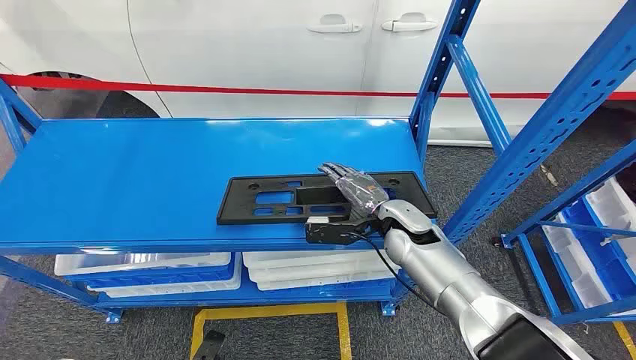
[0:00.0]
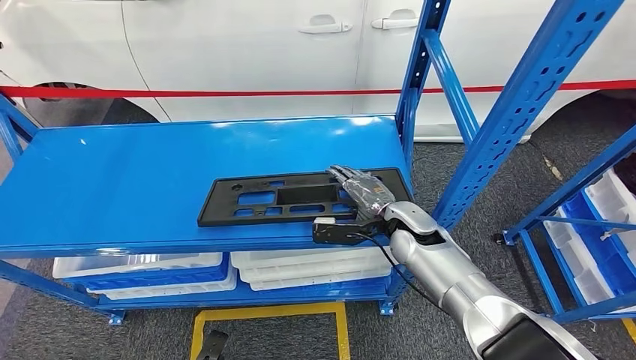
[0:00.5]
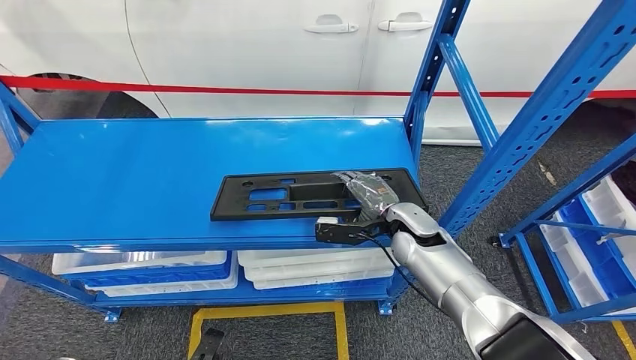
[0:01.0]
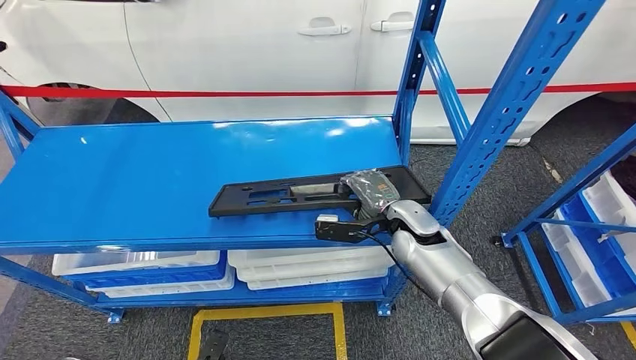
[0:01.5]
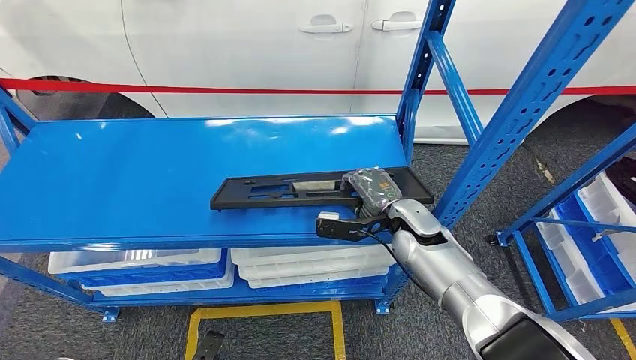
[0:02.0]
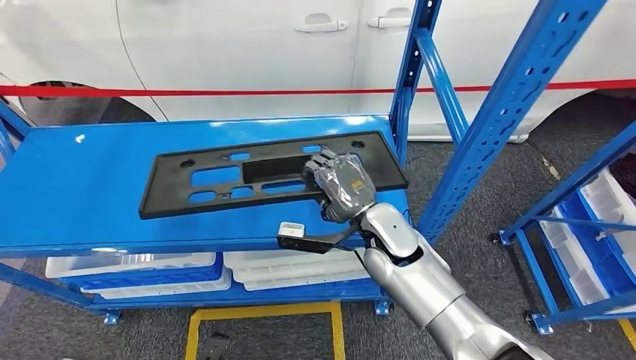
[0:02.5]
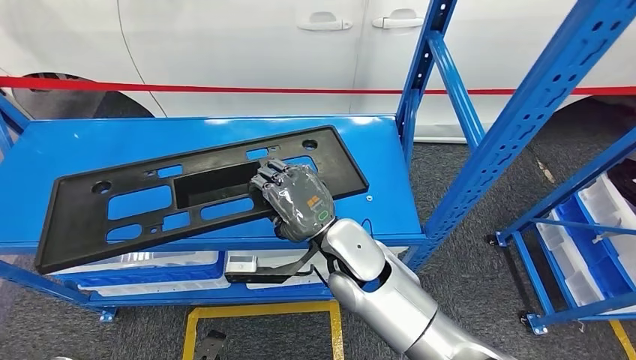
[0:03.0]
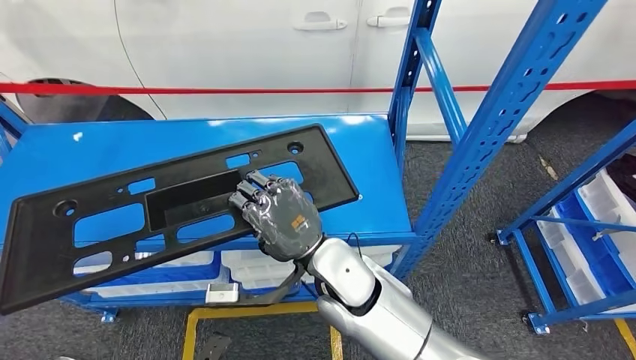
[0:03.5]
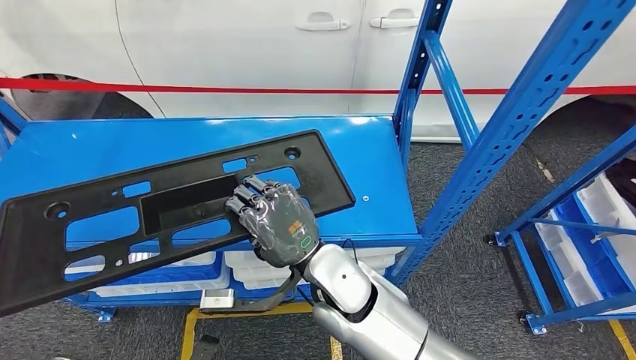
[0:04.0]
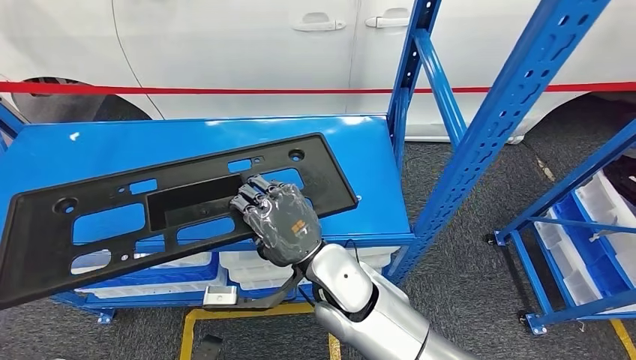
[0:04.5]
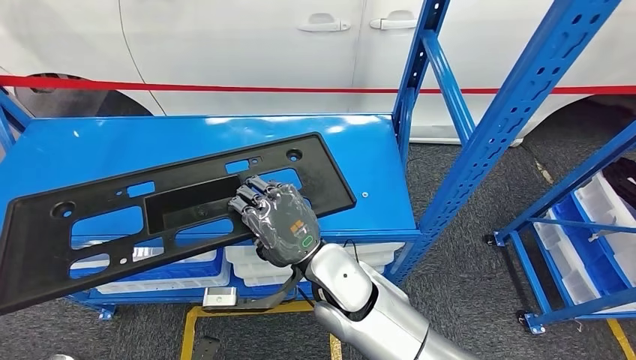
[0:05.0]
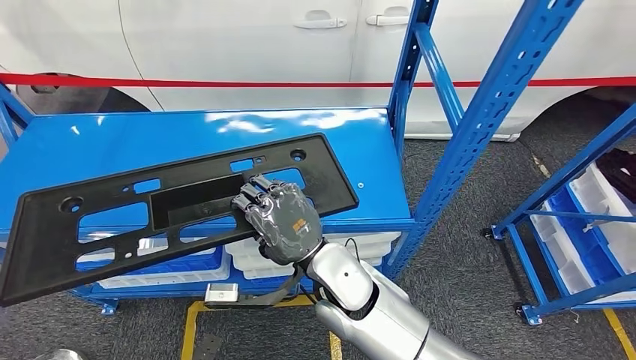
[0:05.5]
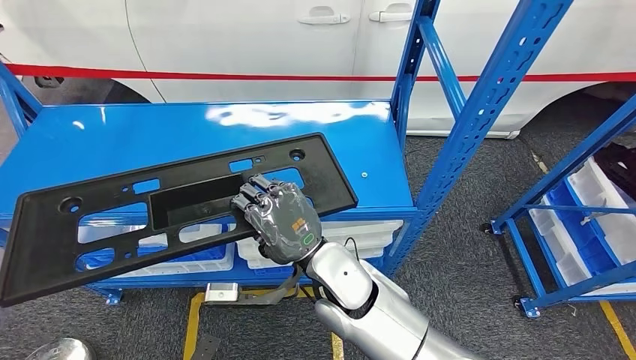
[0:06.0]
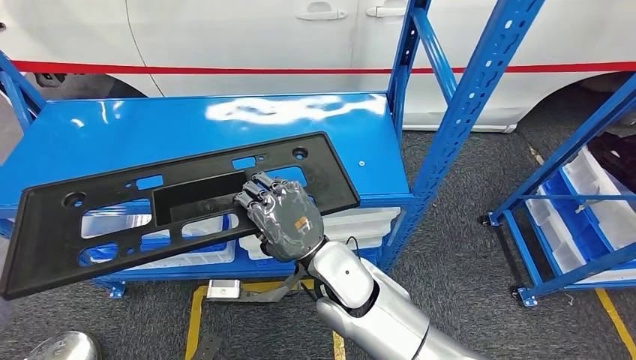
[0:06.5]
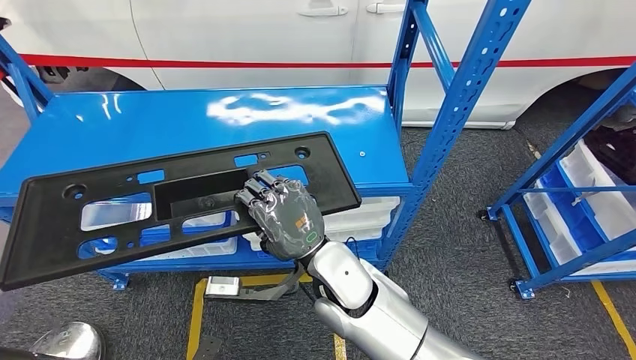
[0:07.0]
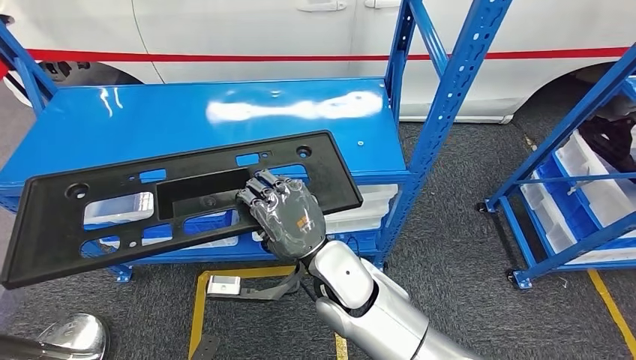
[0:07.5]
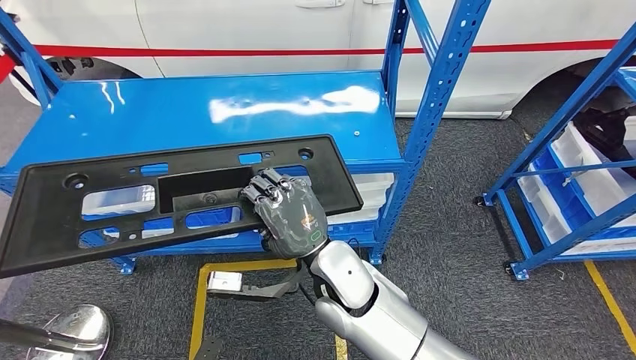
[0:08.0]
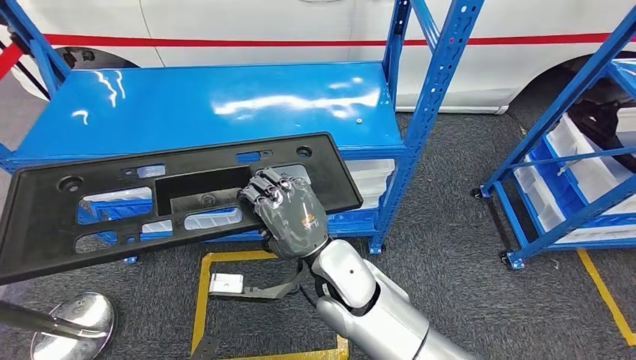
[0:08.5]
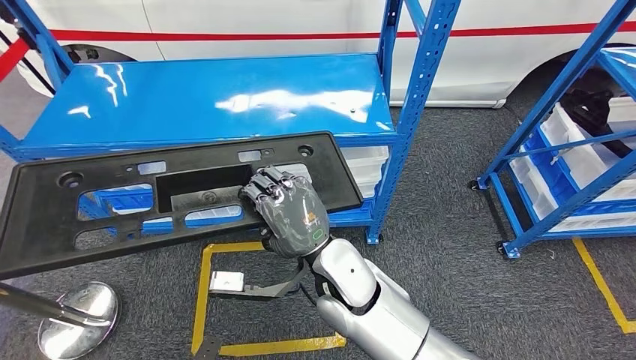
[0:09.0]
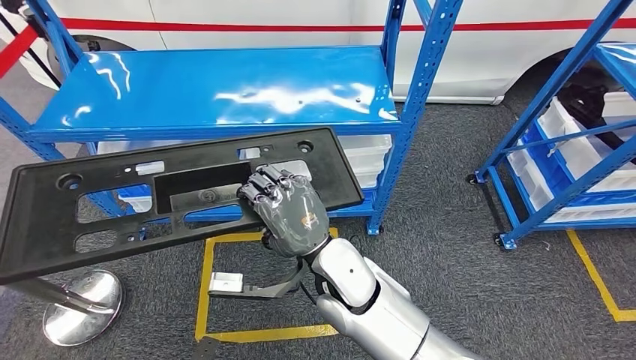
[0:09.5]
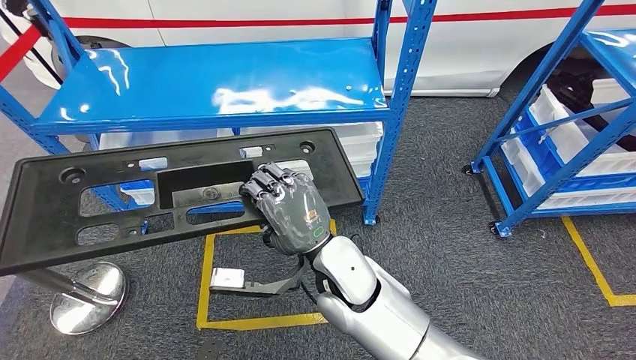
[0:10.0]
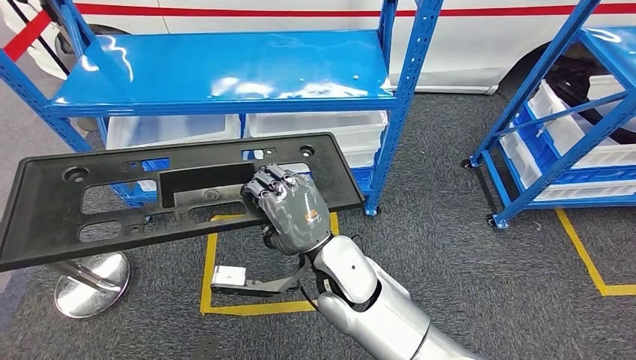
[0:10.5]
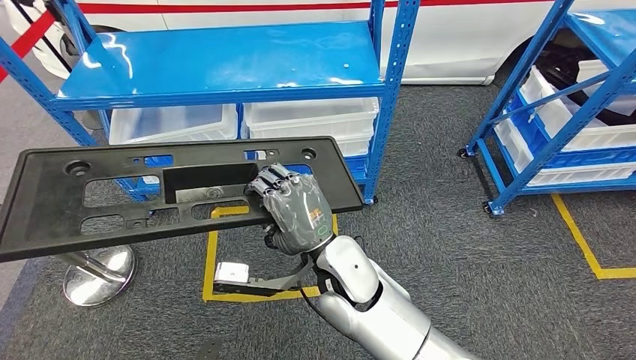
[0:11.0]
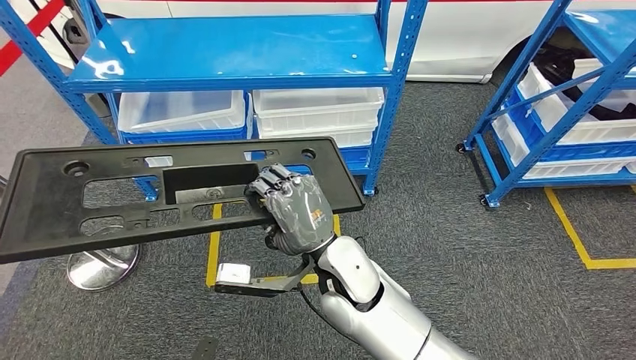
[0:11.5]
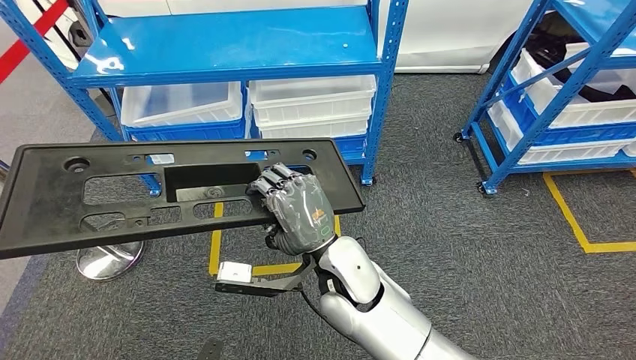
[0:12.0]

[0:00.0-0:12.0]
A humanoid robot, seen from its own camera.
Step, 0:00.0 to 0:04.5: Pick up the large material from the shelf.

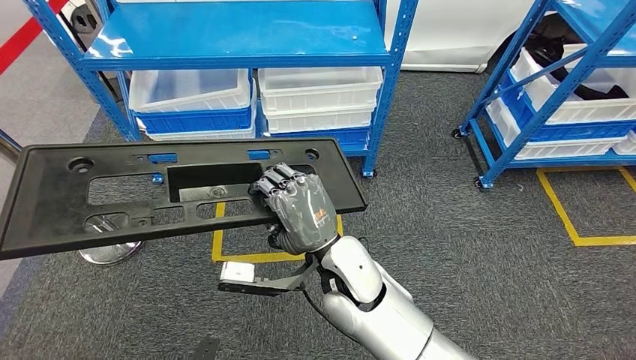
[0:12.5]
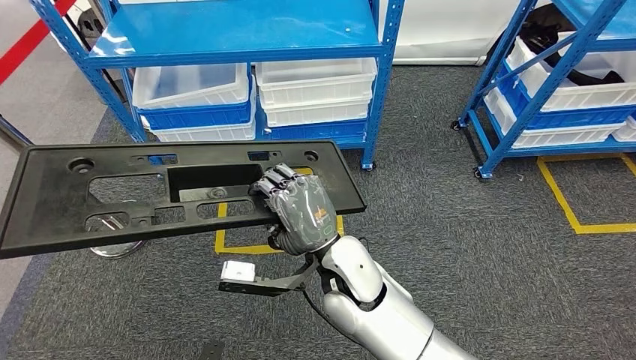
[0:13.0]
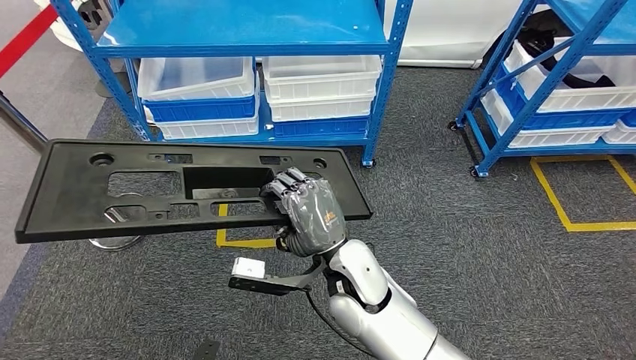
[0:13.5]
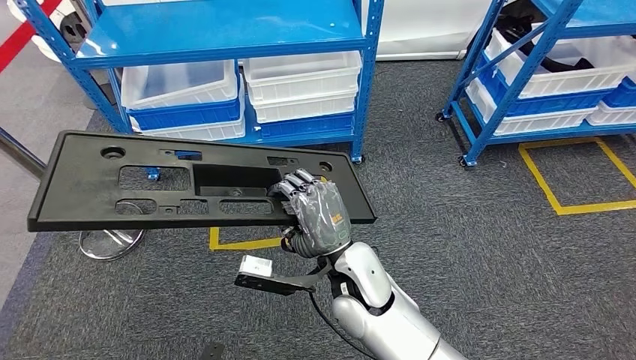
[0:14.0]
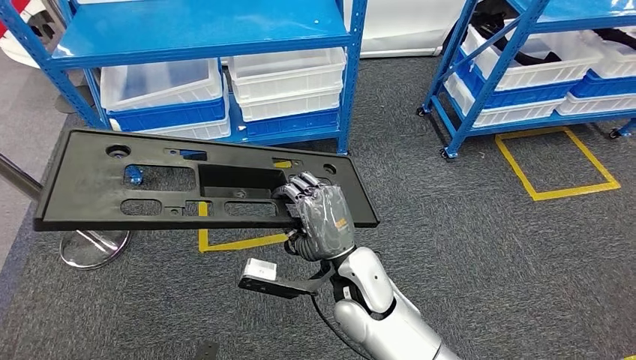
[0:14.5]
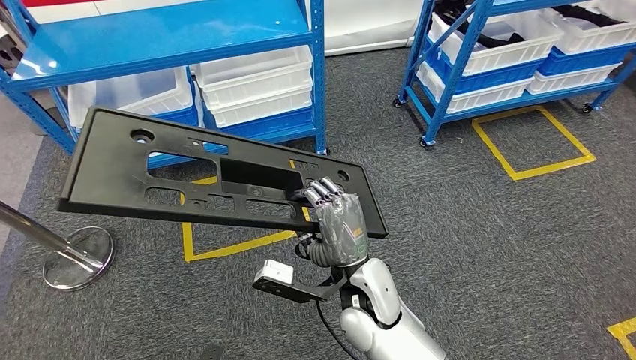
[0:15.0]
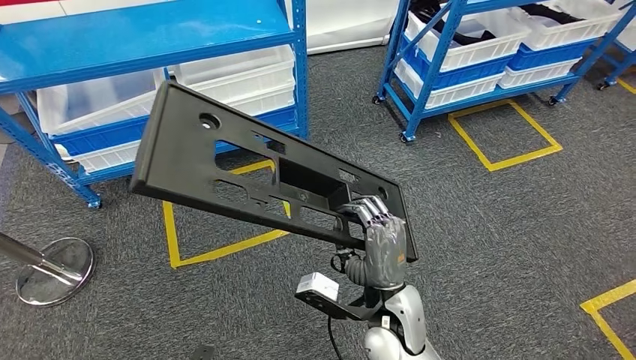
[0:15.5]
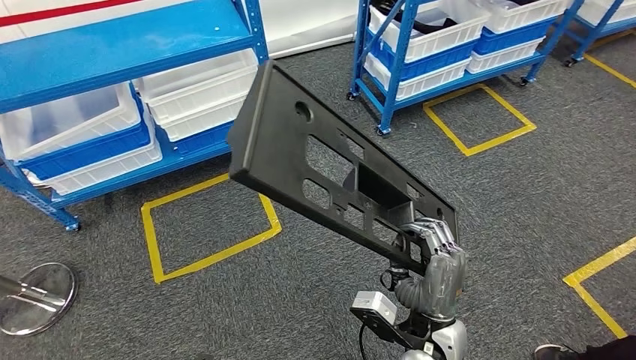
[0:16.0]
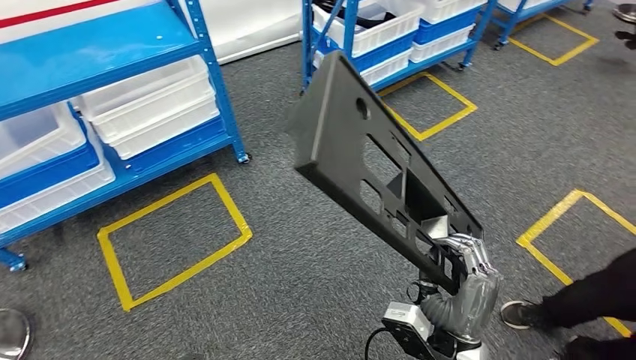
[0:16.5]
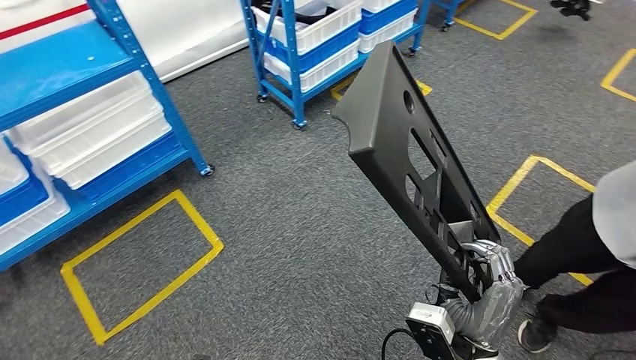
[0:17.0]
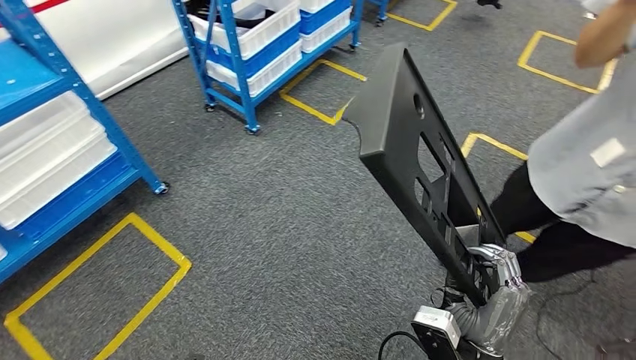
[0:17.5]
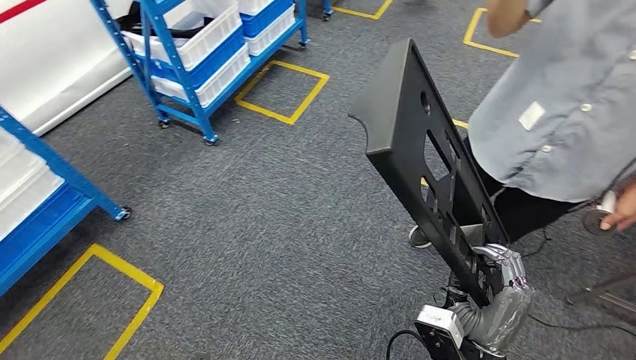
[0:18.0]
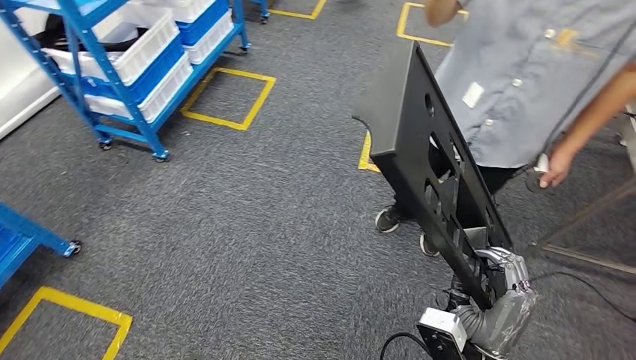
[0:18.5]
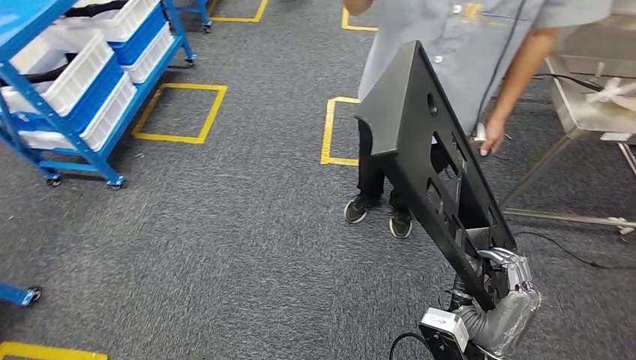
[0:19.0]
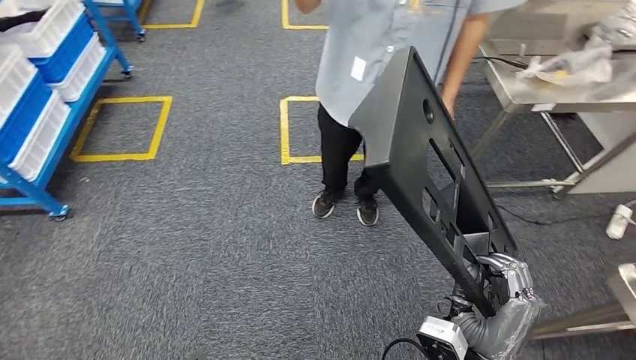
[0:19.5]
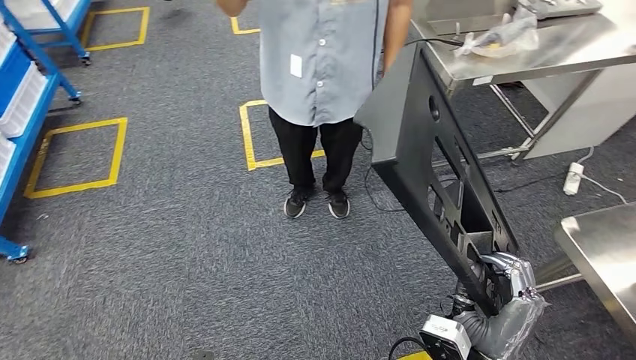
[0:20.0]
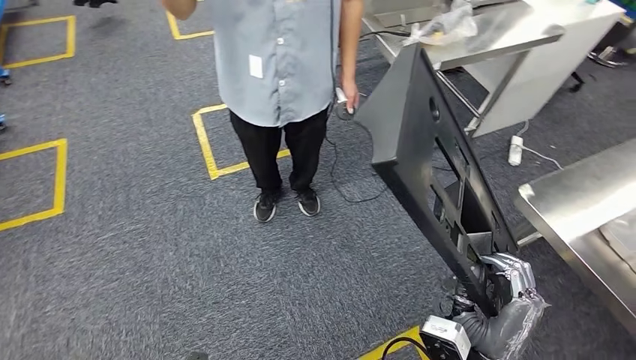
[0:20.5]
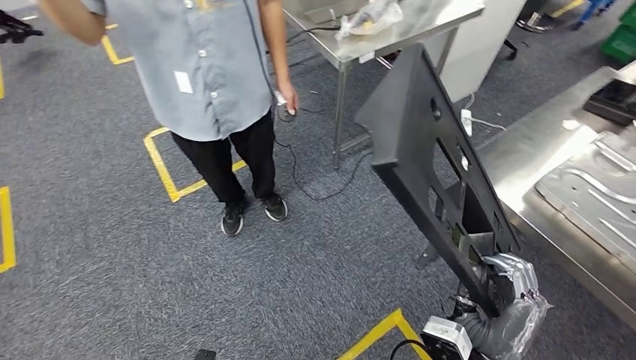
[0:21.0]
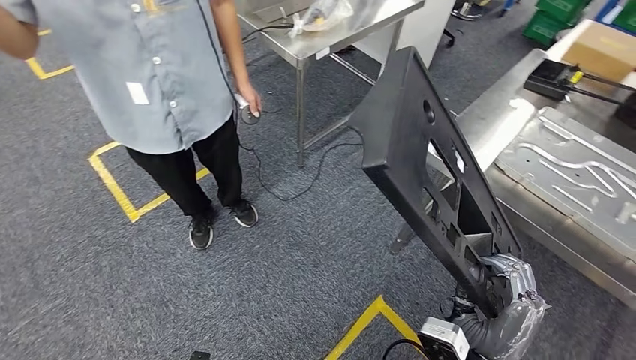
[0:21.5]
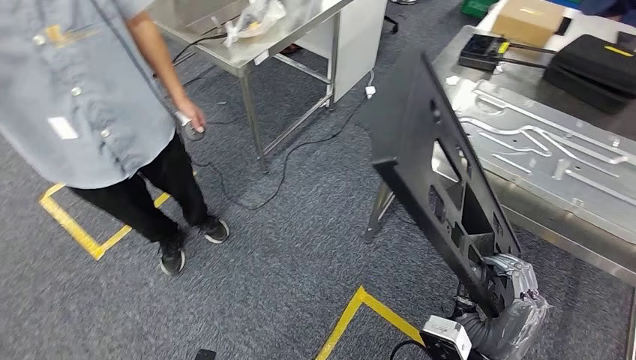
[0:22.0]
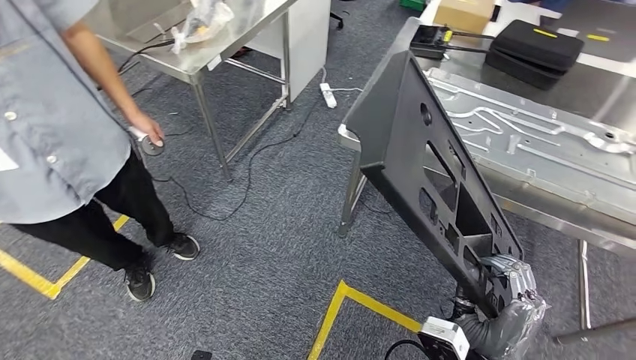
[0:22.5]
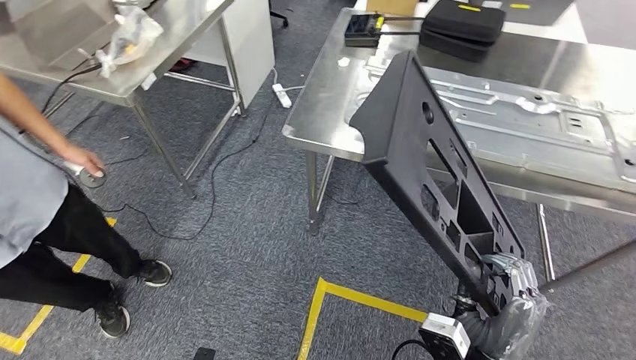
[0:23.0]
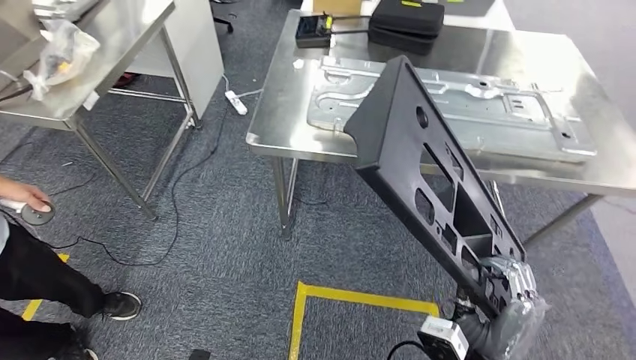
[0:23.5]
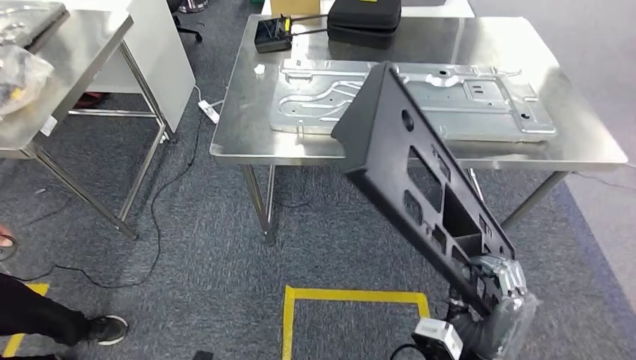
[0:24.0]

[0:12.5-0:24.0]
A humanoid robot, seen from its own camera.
Step, 0:12.5 to 0:23.5: Move the large material to the workbench.
